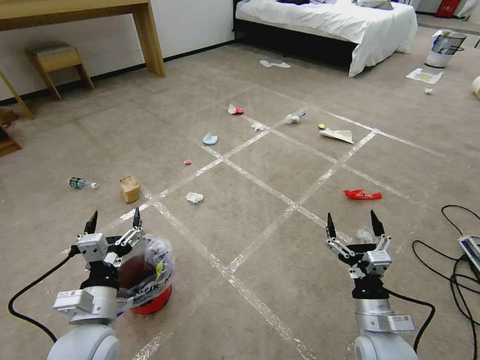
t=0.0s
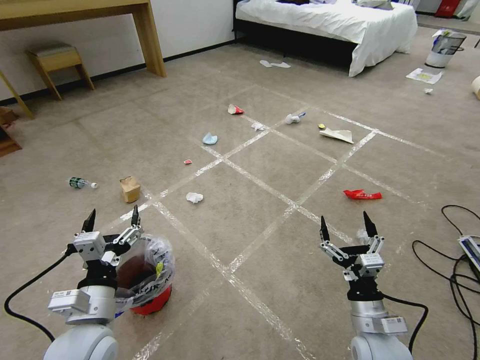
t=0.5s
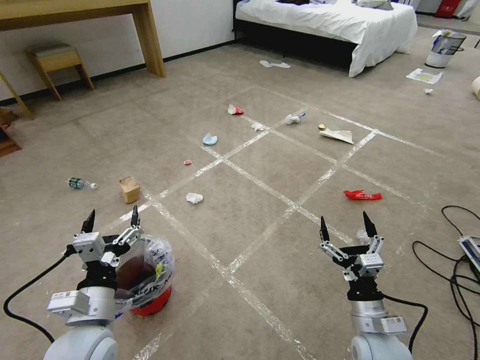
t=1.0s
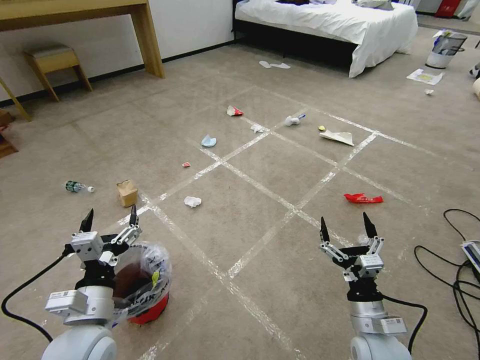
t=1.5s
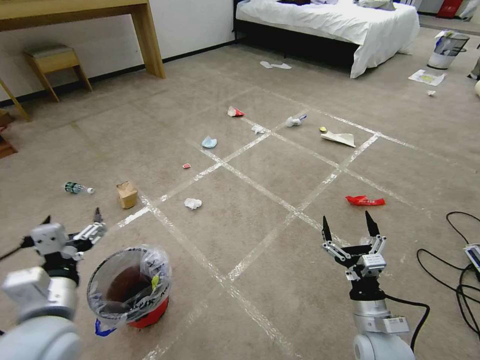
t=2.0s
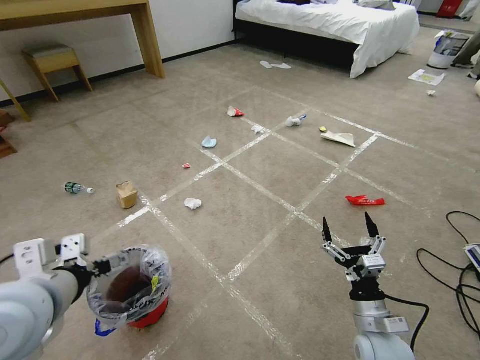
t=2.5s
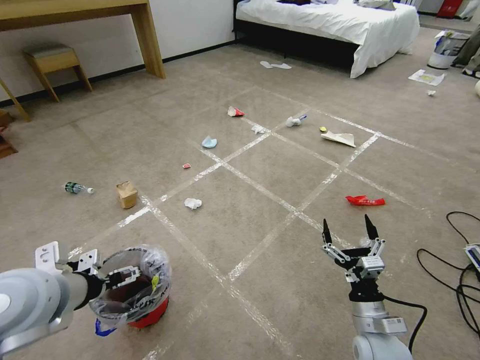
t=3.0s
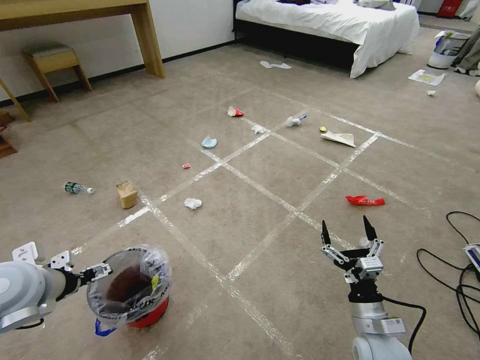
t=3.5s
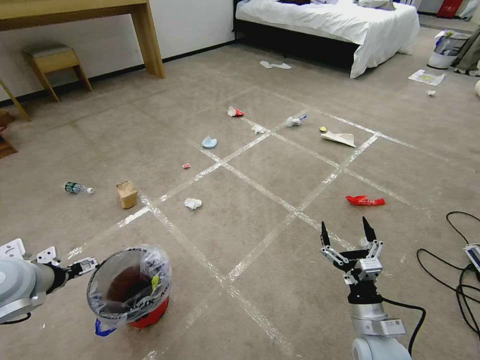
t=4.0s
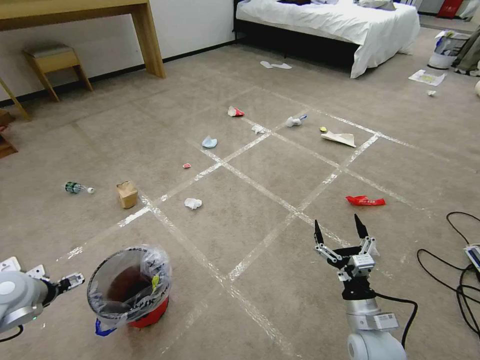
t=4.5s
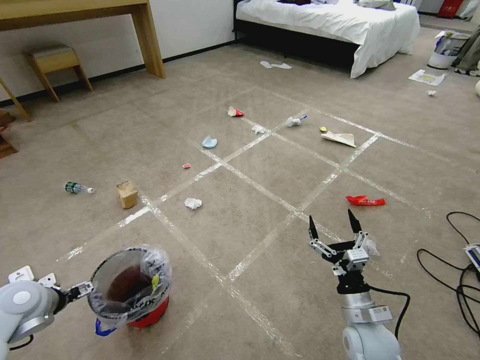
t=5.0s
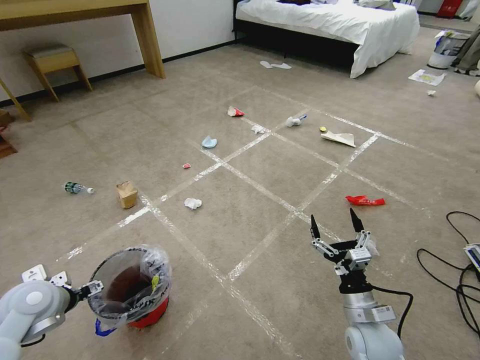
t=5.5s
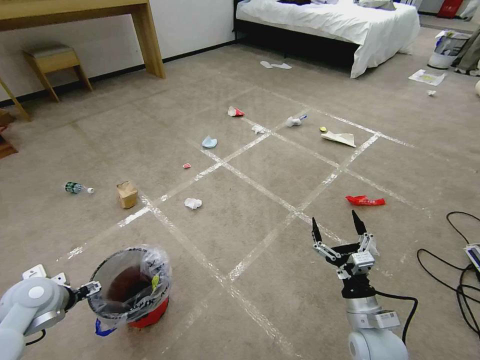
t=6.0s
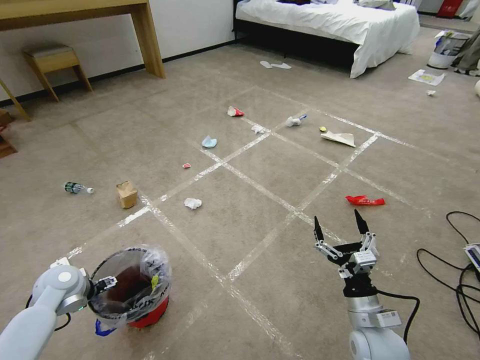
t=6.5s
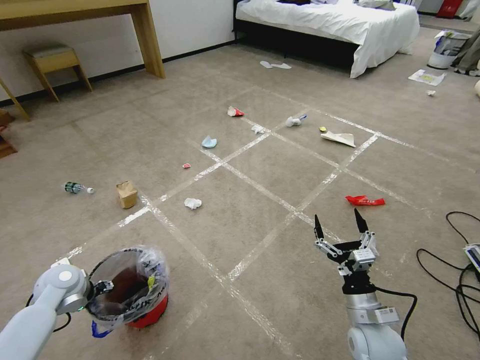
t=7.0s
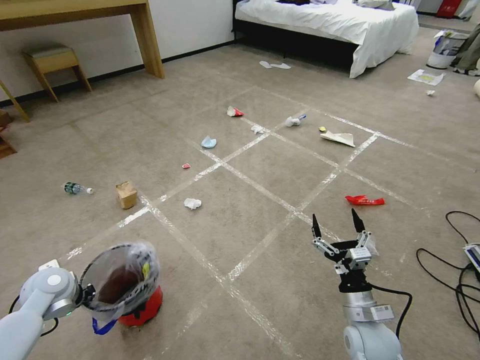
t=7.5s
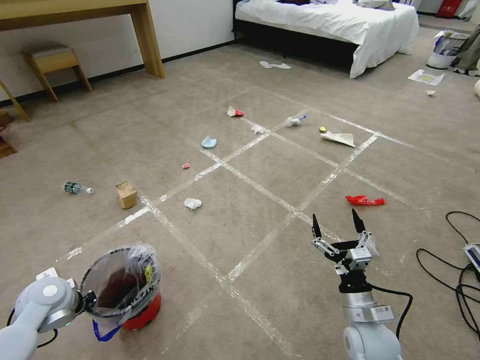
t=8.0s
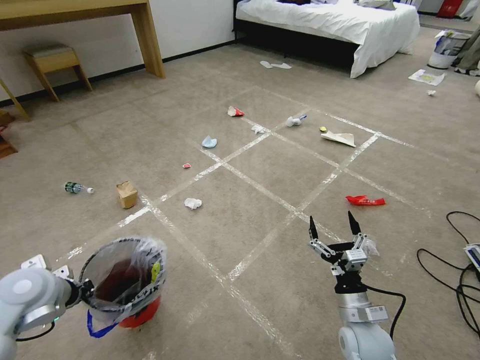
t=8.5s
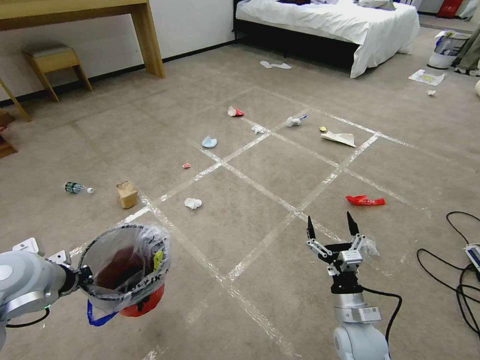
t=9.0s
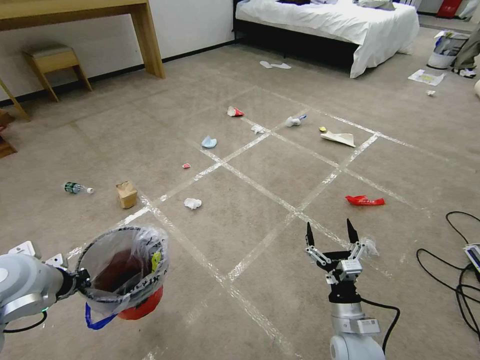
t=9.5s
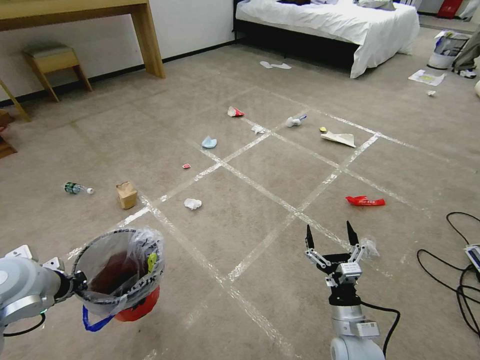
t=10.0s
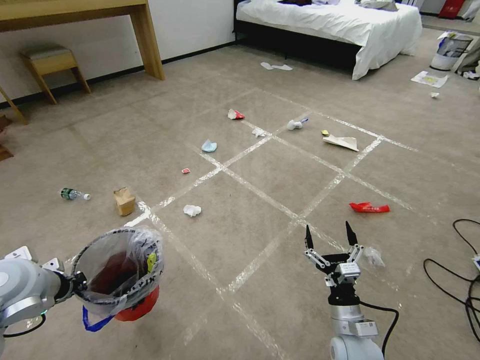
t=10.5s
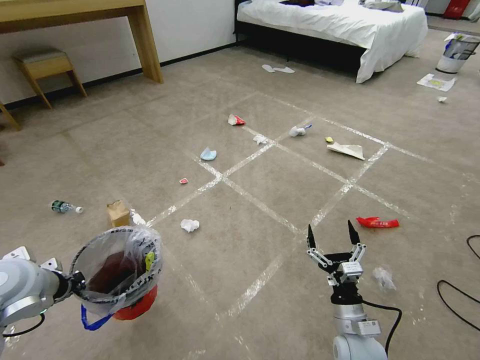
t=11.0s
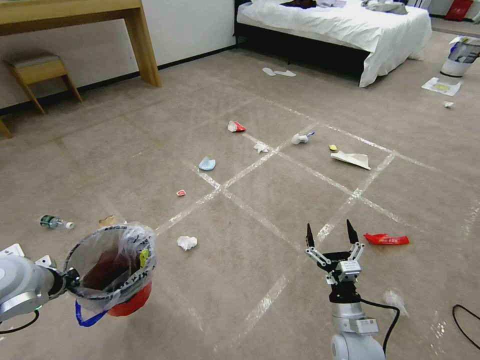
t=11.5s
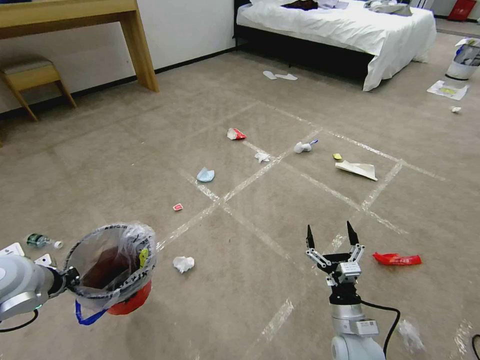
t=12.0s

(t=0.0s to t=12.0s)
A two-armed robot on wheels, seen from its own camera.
Task of the whole recording: Pick up the trash bin and place the garbage on the floor into it.
t=2.0s - t=4.0s: The left gripper heads to the left and forward, covering approximately 15 cm.
t=4.0s - t=6.0s: The left gripper goes approximately 10 cm downward.
t=6.0s - t=8.0s: The left gripper closes up.
t=8.0s - t=10.0s: The left gripper travels upward by some 10 cm.

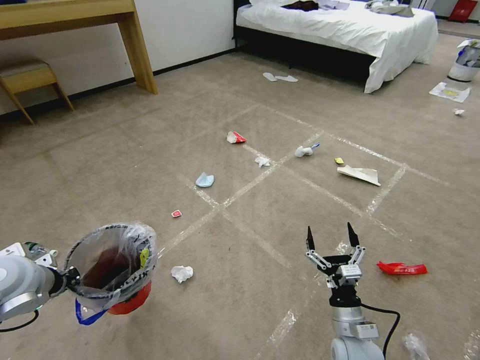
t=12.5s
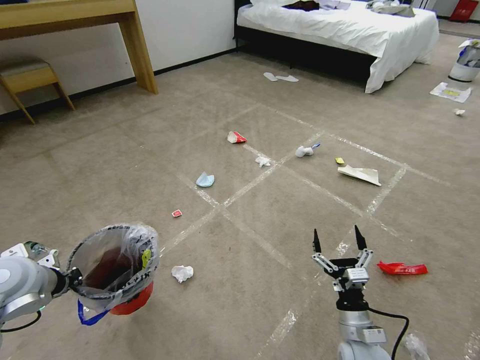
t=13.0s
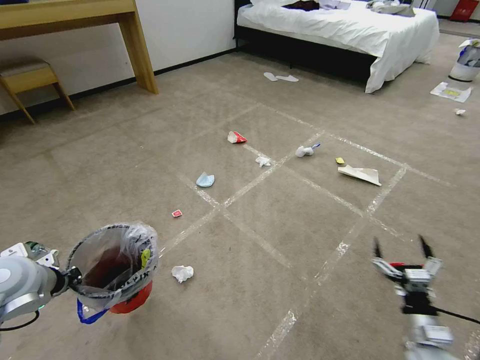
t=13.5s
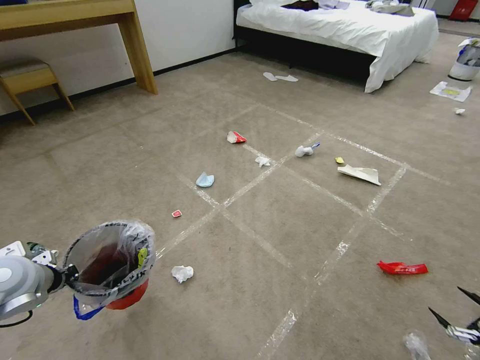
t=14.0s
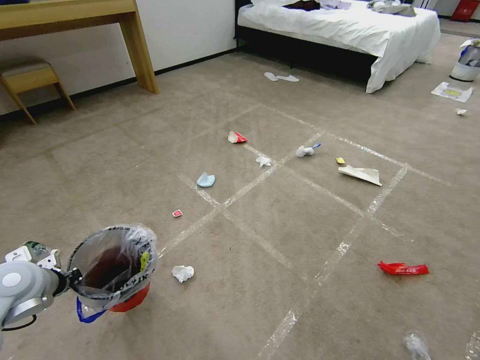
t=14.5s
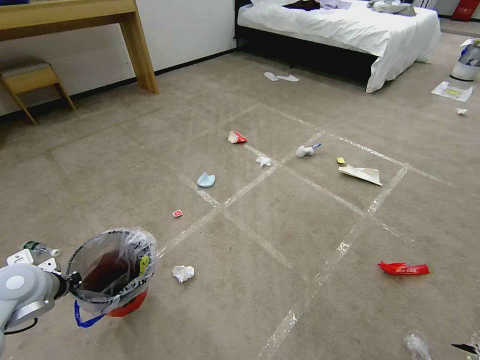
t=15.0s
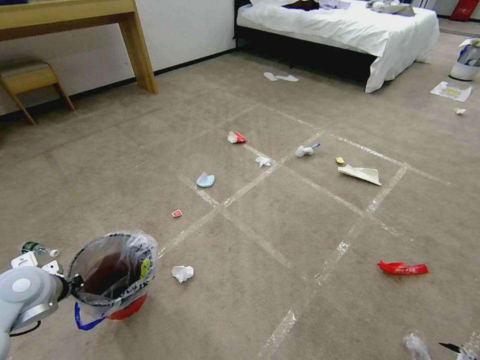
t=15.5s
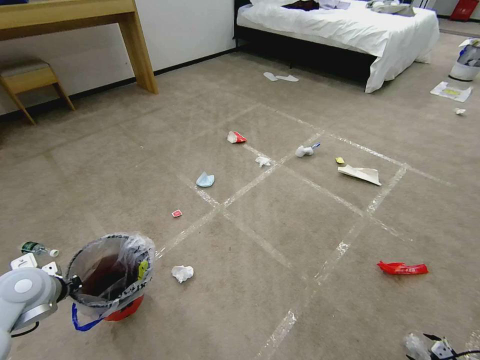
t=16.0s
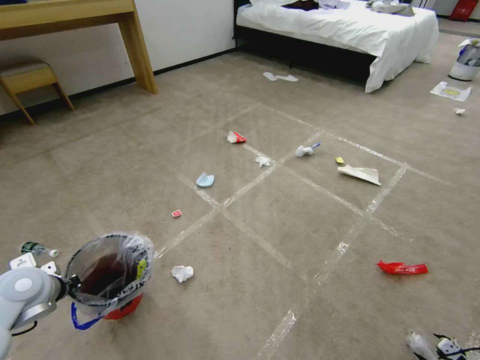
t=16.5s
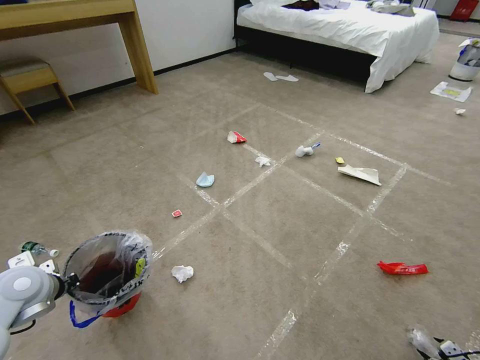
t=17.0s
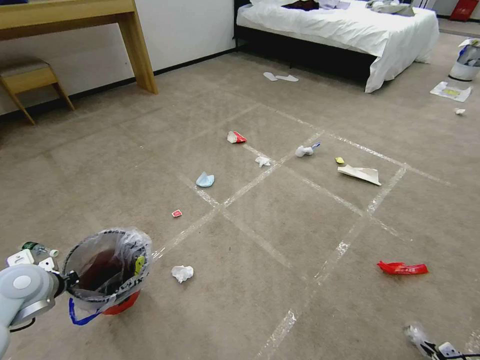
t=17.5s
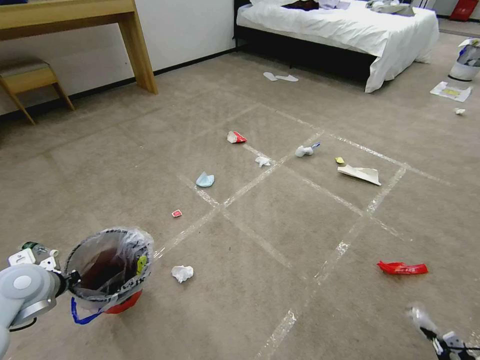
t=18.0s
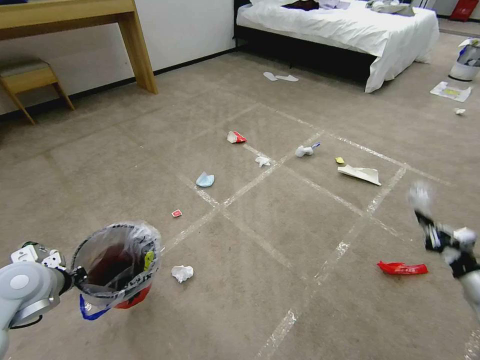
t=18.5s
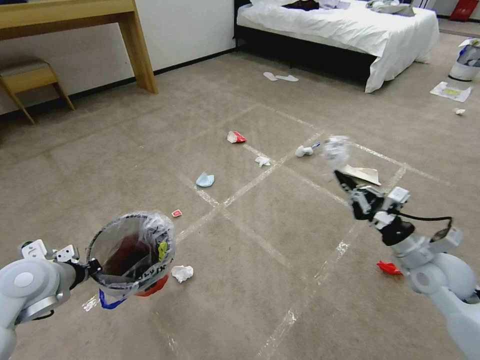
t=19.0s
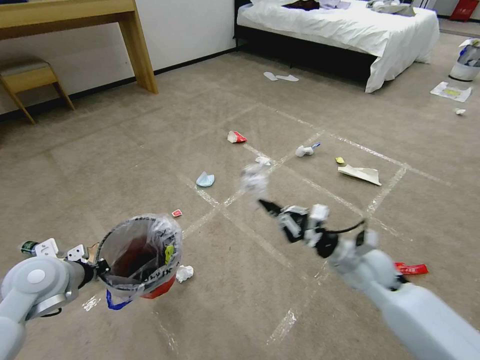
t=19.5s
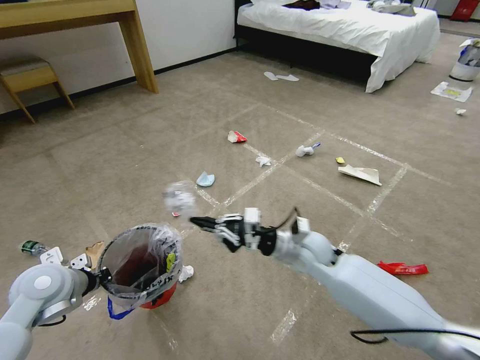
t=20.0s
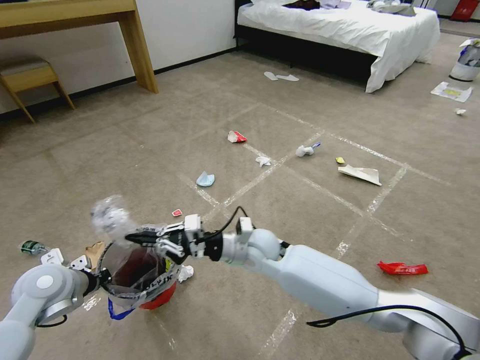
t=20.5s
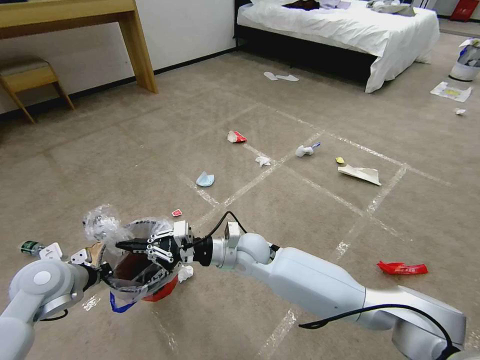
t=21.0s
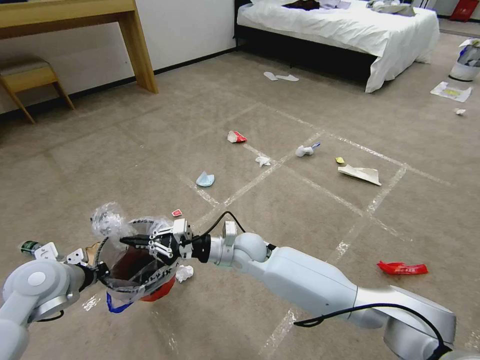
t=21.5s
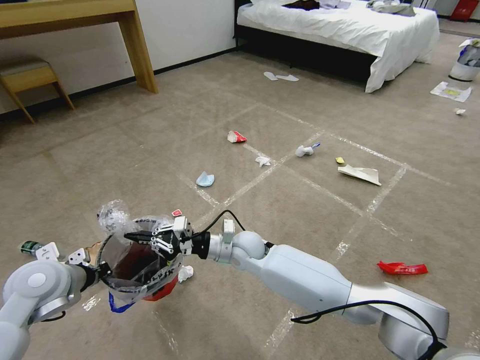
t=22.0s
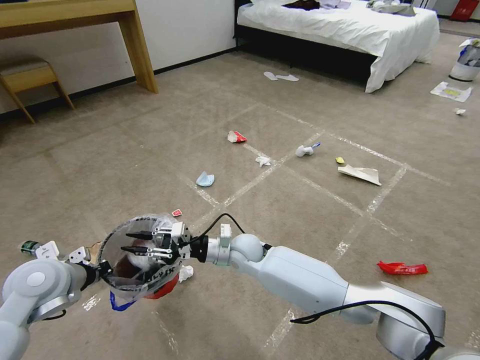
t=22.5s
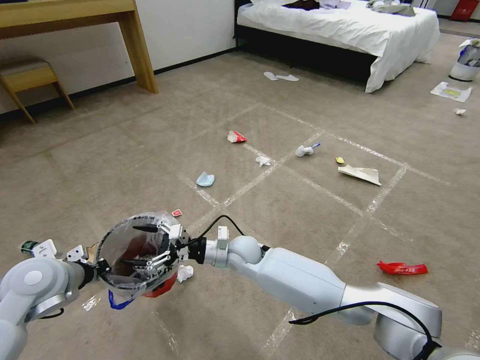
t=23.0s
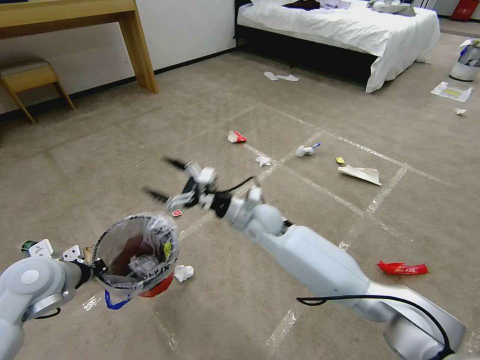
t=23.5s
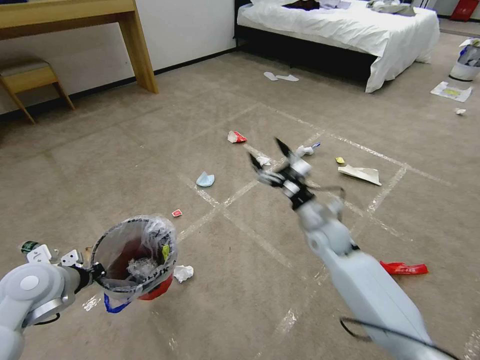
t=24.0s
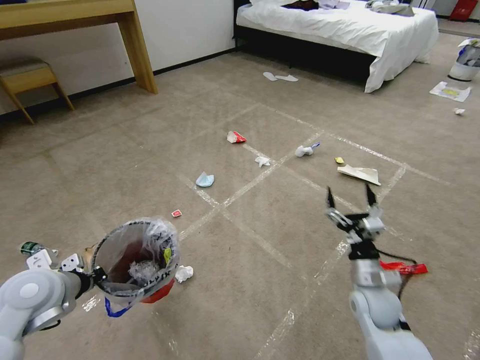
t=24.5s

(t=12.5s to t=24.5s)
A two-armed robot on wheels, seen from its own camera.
Task of the whole recording: Pick up the trash bin and place the garbage on the floor into it.
t=12.5s - t=14.5s: The right gripper moves to the right, about 50 cm.
t=14.5s - t=16.5s: The right gripper heads downward and to the left, covering roughly 25 cm.
t=16.5s - t=18.5s: The right gripper is displaced upward, forward and to the left by about 25 cm, and closes.
t=18.5s - t=20.5s: The right gripper heads to the left, covering roughly 50 cm.
t=20.5s - t=22.5s: The right gripper goes roughly 5 cm downward, and opens.
t=22.5s - t=24.5s: The right gripper is displaced to the right and backward by roughly 30 cm, and opens.

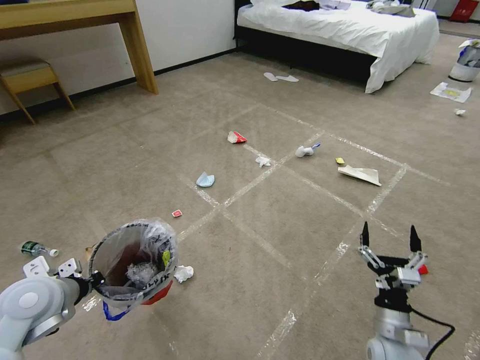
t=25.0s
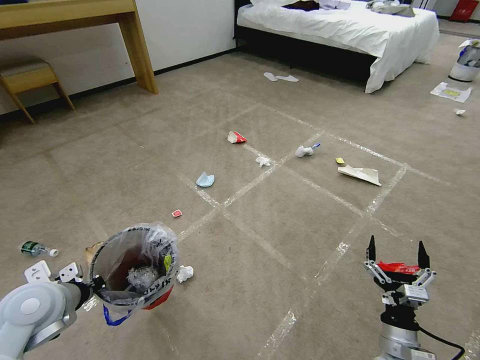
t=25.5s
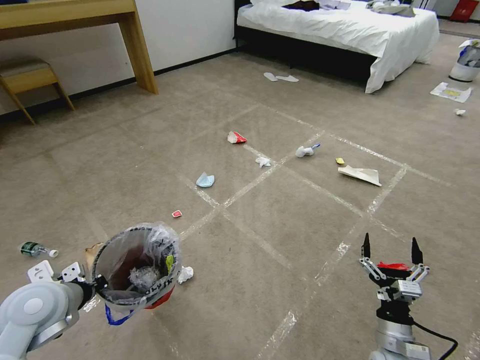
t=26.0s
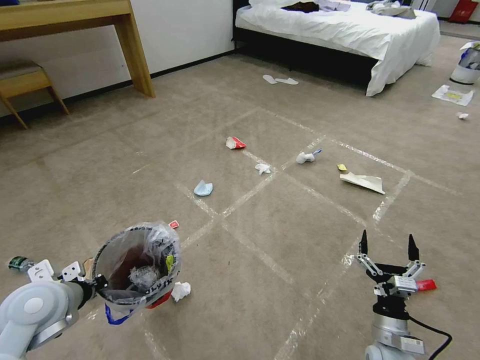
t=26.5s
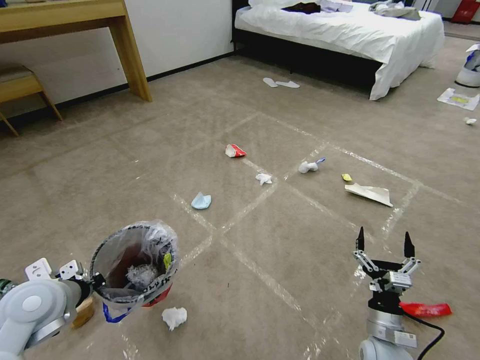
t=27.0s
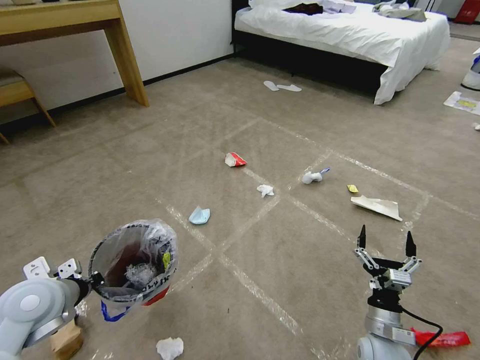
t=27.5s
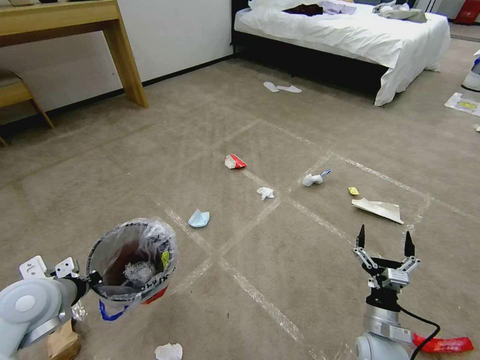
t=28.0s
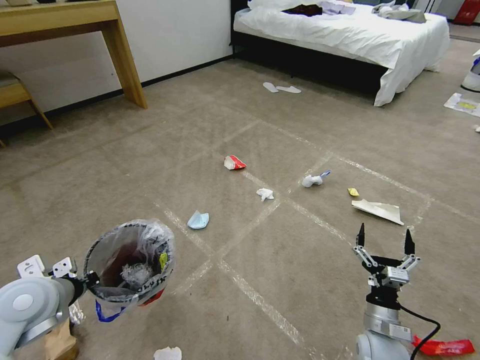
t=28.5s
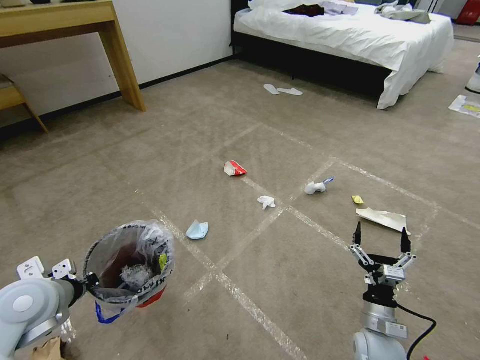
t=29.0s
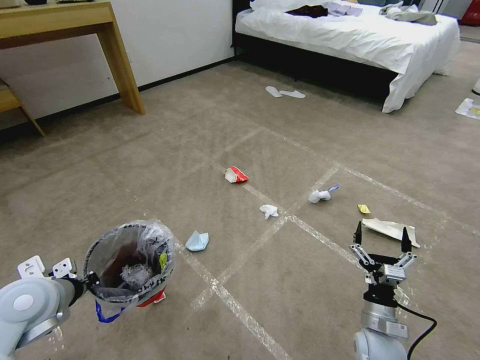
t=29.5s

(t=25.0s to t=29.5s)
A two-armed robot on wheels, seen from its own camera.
Task of the whole recording: Pick up the trash bin and place the garbage on the floor into it.
t=25.0s - t=27.0s: The grippers make only small movements.
